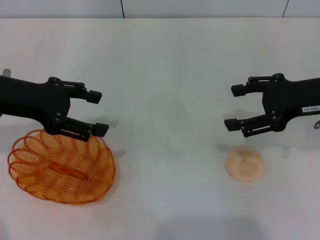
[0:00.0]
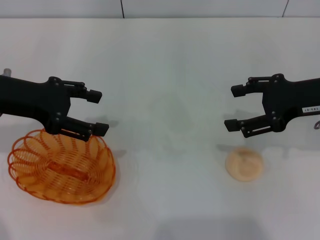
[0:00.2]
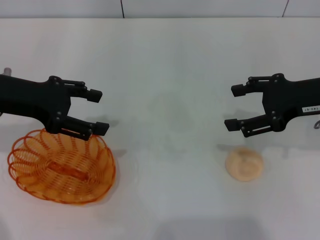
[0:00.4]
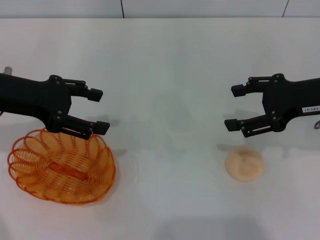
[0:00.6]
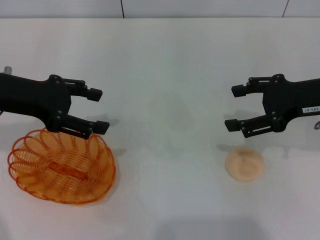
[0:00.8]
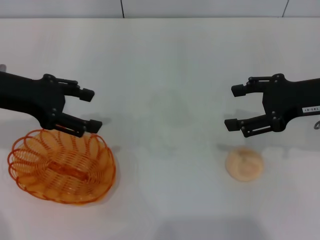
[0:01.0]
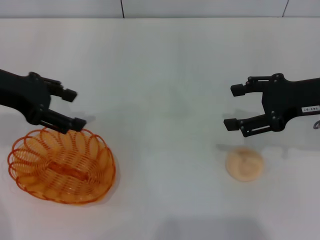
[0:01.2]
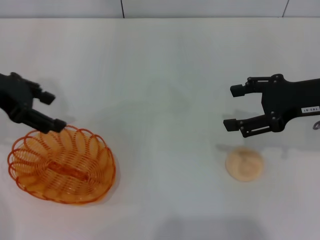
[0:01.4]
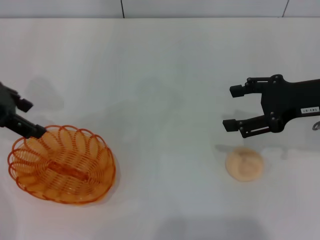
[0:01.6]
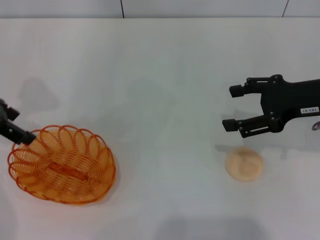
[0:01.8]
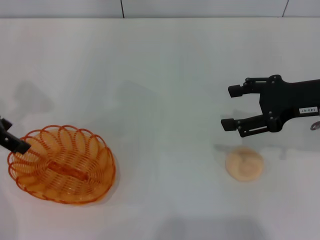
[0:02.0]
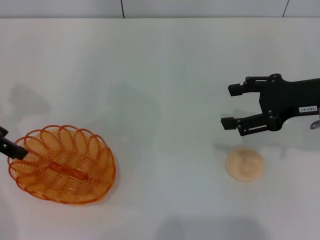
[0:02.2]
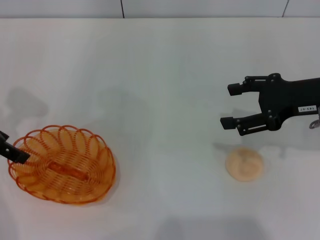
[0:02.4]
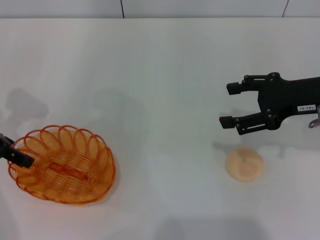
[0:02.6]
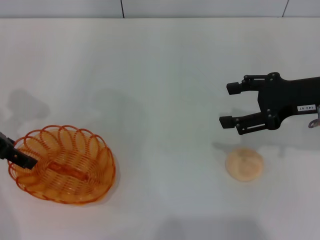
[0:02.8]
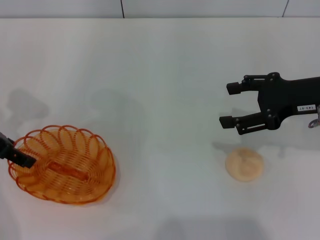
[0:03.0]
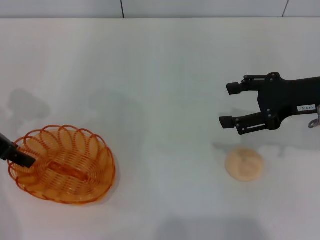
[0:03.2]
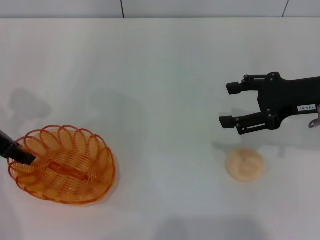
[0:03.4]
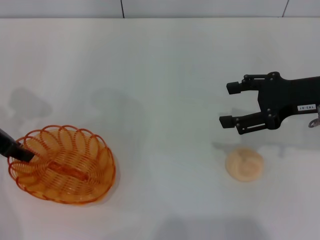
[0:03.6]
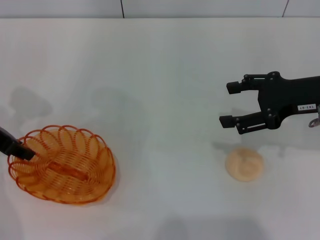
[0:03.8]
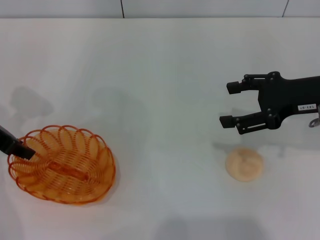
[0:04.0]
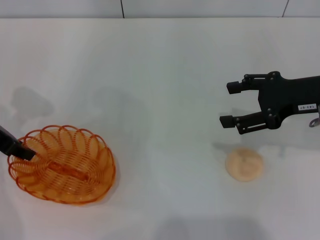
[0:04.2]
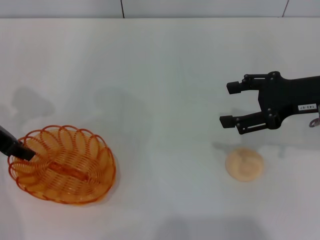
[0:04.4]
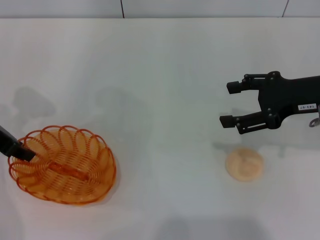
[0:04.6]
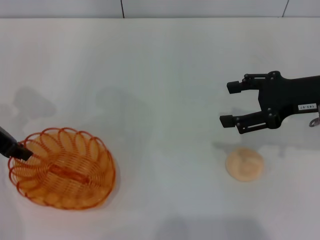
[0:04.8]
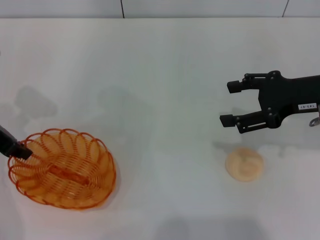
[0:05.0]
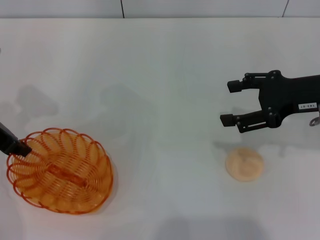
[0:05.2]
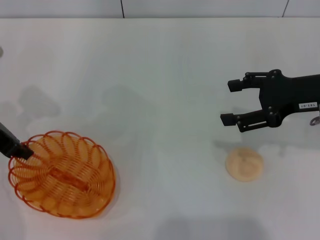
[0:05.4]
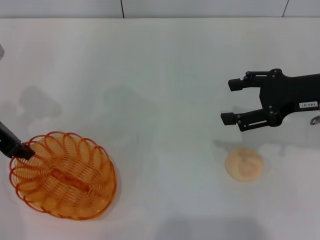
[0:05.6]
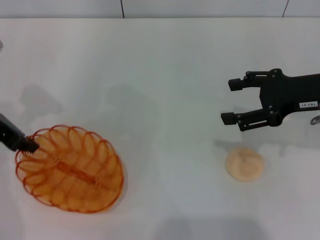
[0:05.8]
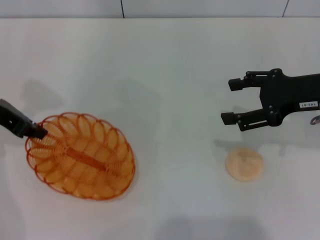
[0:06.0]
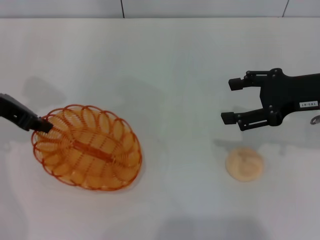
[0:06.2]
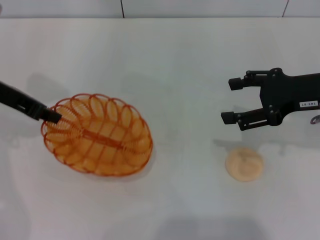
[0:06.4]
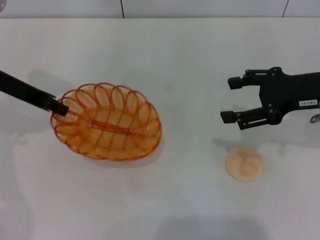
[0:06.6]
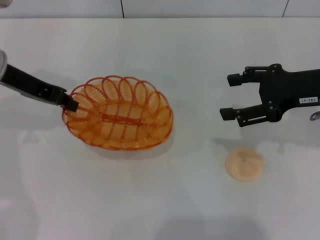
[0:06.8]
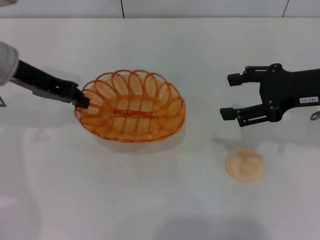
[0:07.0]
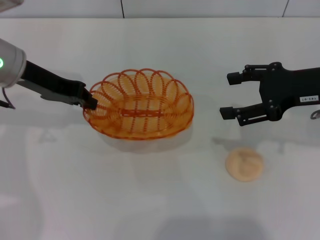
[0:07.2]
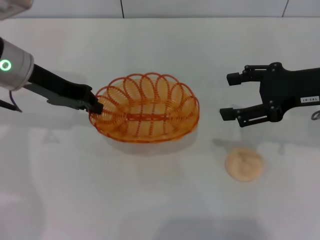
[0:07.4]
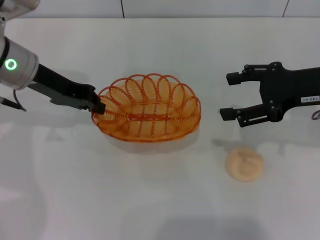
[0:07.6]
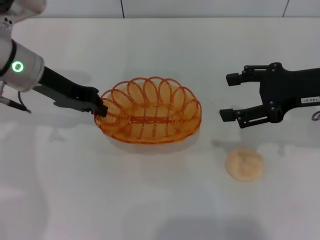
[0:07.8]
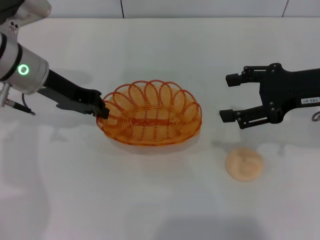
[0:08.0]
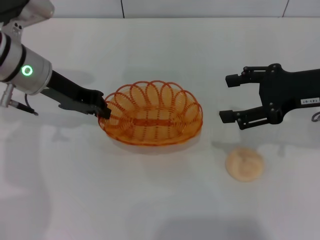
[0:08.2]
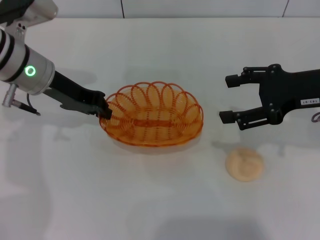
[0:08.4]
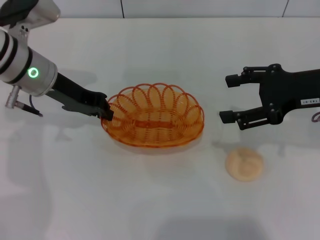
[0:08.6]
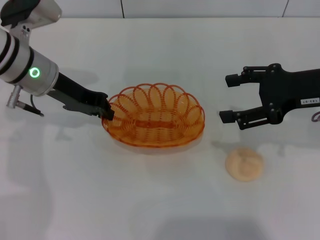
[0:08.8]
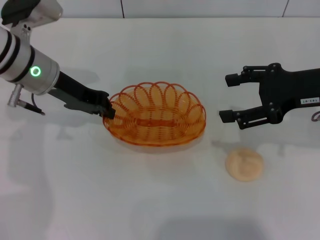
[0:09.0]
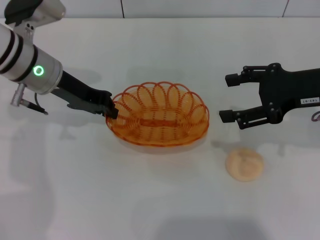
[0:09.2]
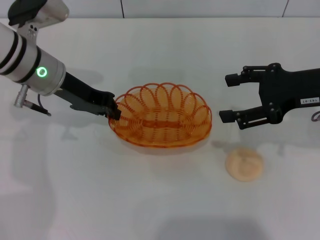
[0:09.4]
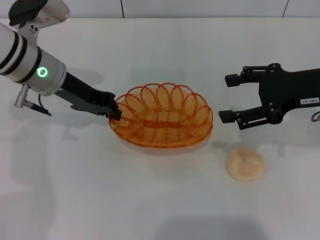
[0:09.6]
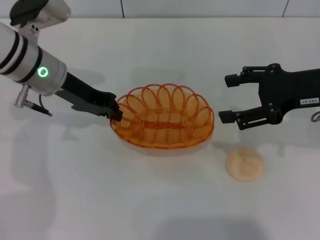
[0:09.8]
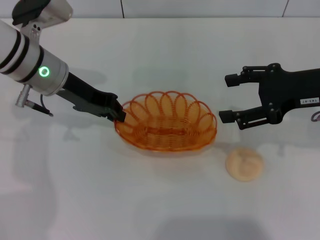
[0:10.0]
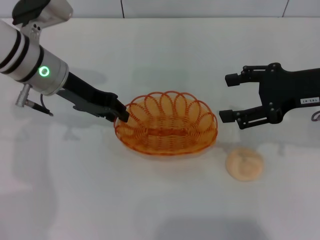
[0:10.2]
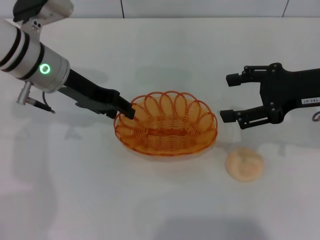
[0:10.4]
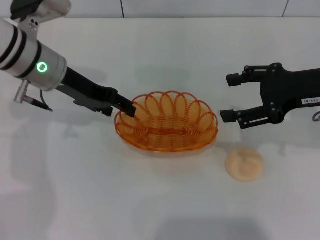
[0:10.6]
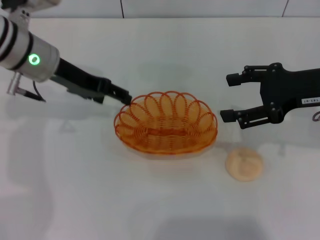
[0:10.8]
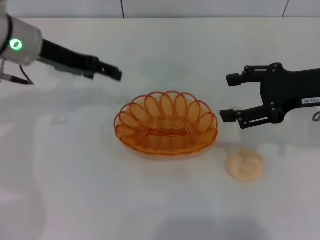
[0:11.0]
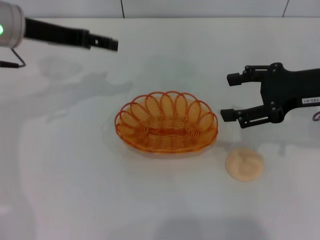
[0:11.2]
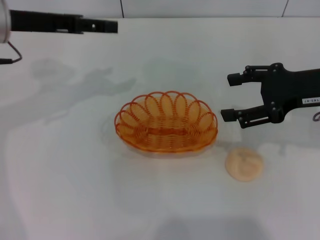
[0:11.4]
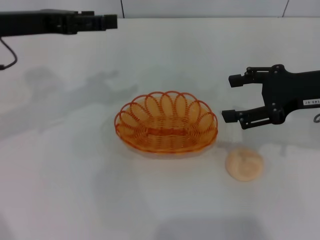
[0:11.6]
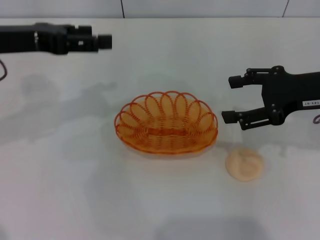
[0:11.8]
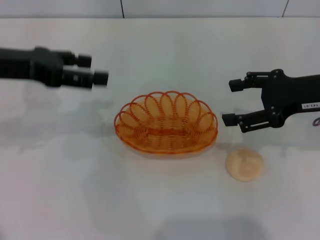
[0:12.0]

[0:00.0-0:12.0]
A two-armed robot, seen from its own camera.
Step, 0:00.0 to 0:06.4: Pick up the basket with the left gripper.
Step, 0:06.6 to 0:11.0: Place the basket in the center of view with the left gripper.
0:00.0 to 0:01.6: The left gripper changes place by roughly 5 cm.
0:01.6 to 0:03.0: The left gripper heads downward, covering roughly 5 cm.
0:03.0 to 0:04.4: The left gripper closes.
0:04.4 to 0:06.0: The grippers move only a little.
0:06.0 to 0:07.6: The left gripper goes roughly 5 cm to the right.
0:07.6 to 0:09.0: The grippers stay close to where they were, moving slightly.
0:09.0 to 0:10.4: The left gripper opens.
0:10.4 to 0:12.0: The left gripper heads to the left, backward and upward, covering roughly 10 cm, and opens up.

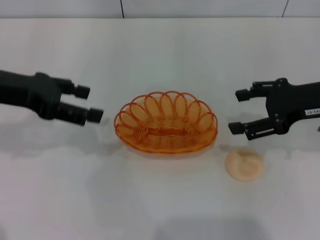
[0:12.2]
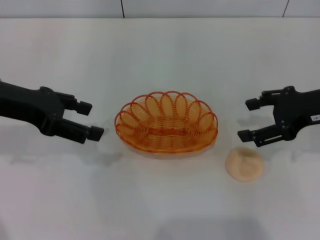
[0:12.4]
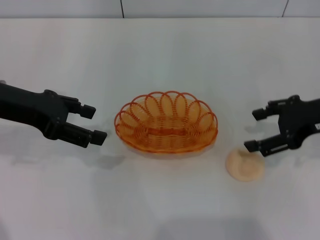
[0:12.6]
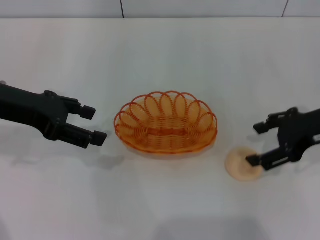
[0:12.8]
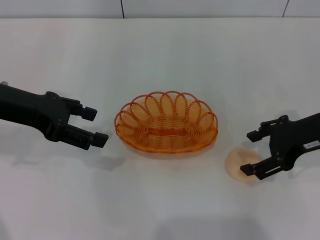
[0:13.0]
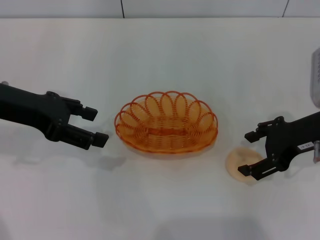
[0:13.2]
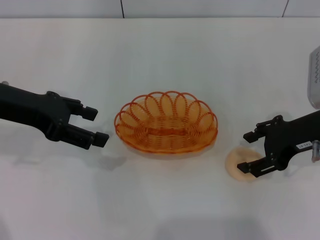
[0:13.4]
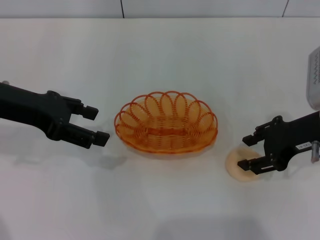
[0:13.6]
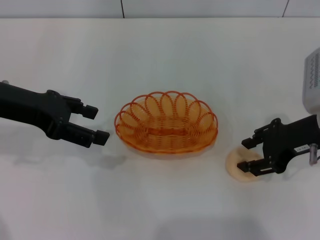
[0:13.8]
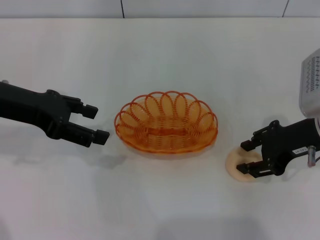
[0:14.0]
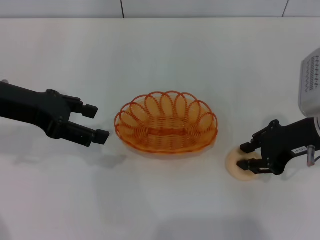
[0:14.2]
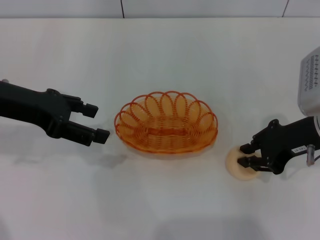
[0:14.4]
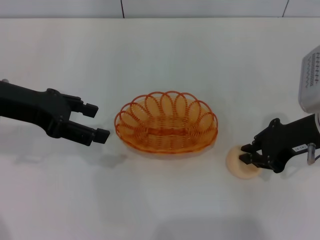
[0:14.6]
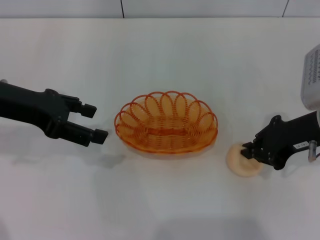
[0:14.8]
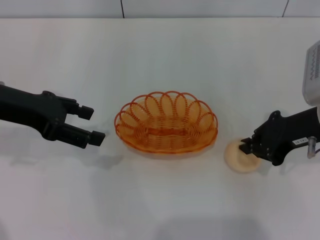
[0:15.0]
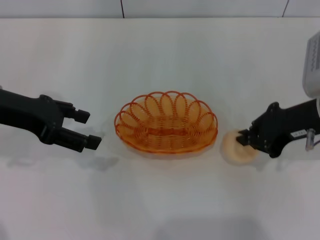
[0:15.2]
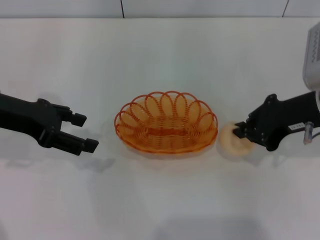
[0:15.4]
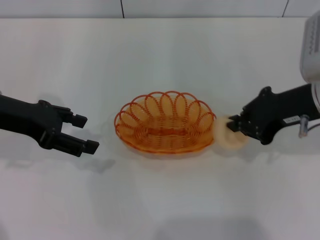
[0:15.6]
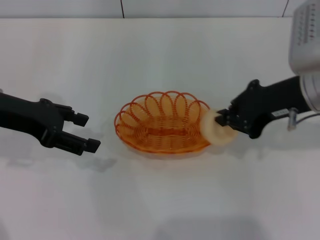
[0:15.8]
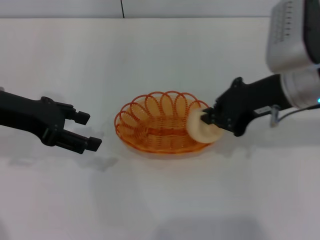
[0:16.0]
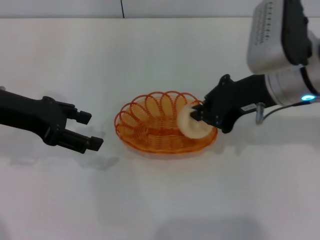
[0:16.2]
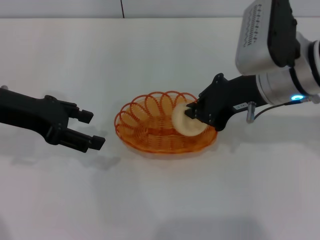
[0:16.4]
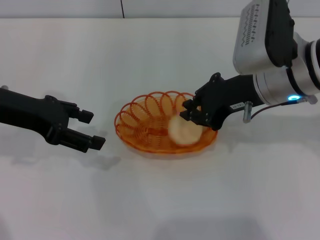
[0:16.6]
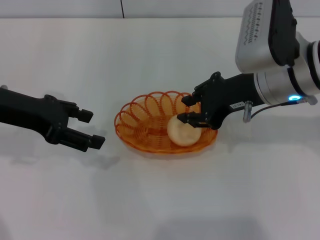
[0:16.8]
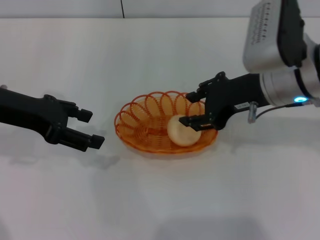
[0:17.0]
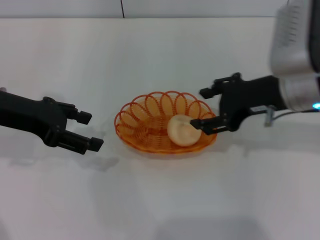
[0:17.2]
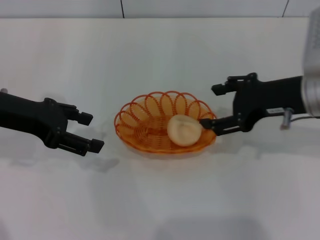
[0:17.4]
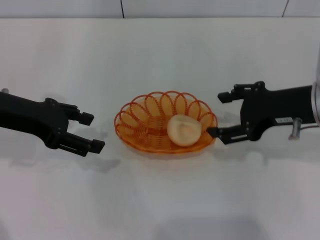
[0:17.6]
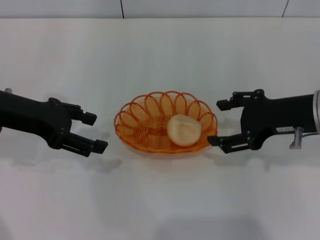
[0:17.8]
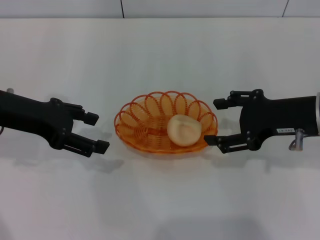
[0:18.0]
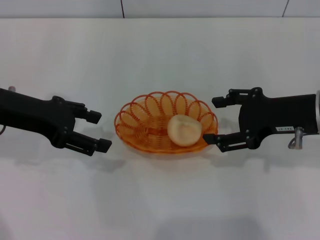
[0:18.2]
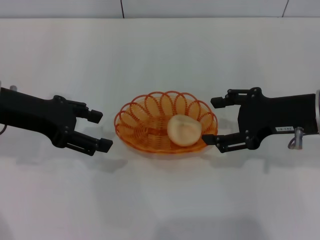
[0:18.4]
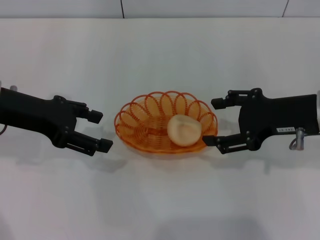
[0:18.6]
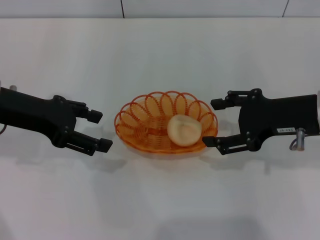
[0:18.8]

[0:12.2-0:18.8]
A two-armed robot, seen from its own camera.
Step, 0:12.2 to 0:15.4: Pick up the egg yolk pastry with the right gripper.
Step, 0:15.6 to 0:17.4: Place the egg yolk pastry into the basket with the right gripper.
0:13.8 to 0:15.4: The right gripper closes up.
0:15.4 to 0:17.2: The right gripper opens up.
0:17.2 to 0:18.8: The right gripper changes place by approximately 5 cm.
